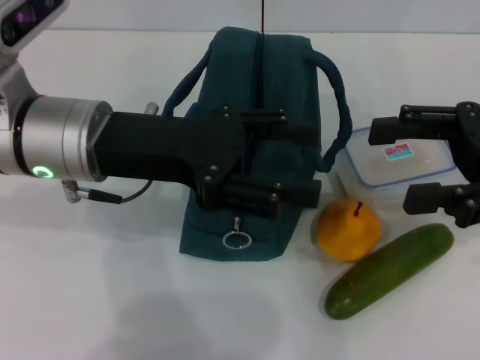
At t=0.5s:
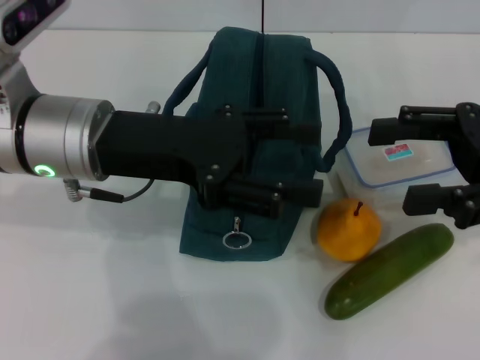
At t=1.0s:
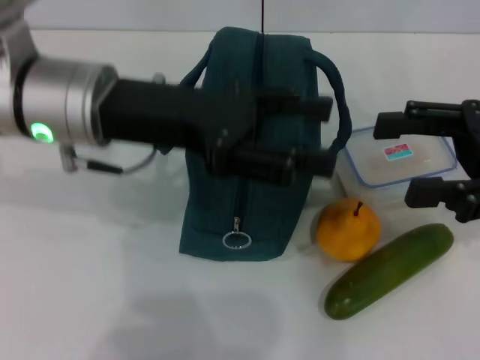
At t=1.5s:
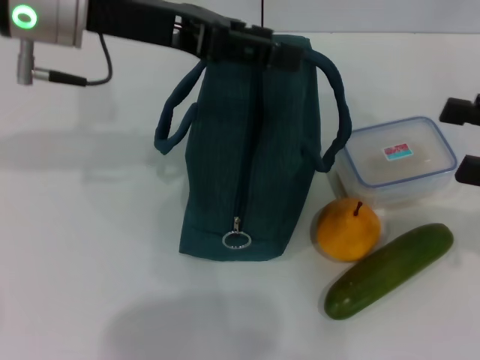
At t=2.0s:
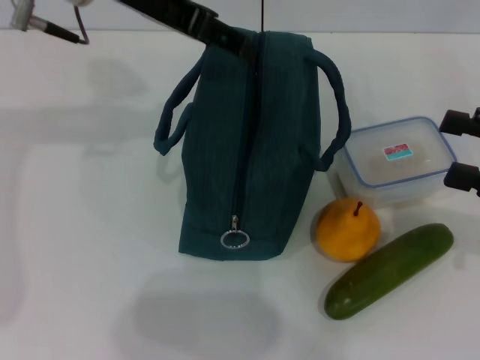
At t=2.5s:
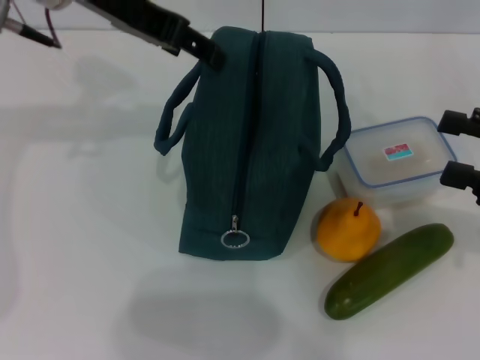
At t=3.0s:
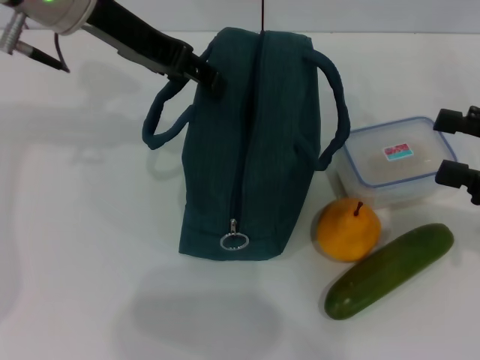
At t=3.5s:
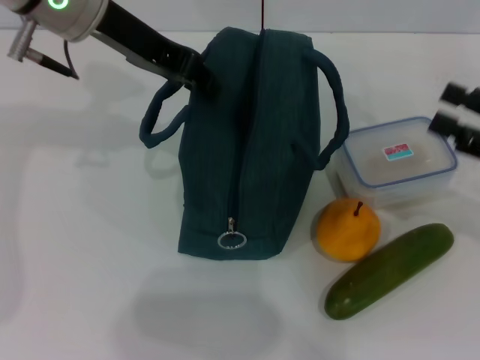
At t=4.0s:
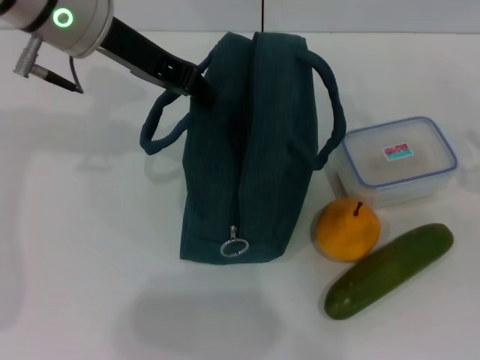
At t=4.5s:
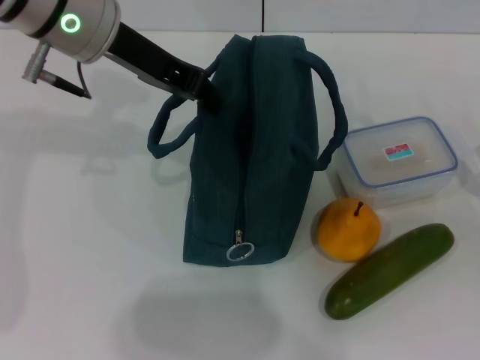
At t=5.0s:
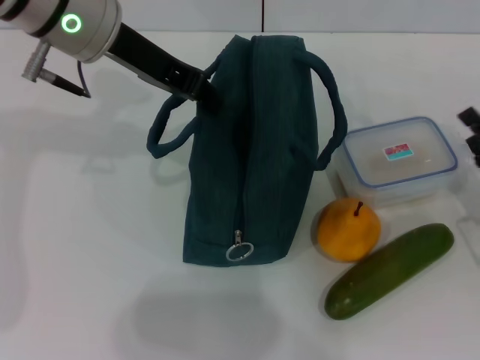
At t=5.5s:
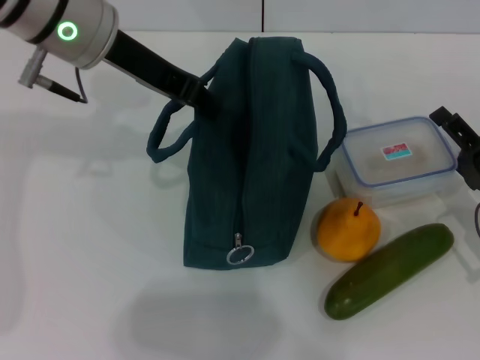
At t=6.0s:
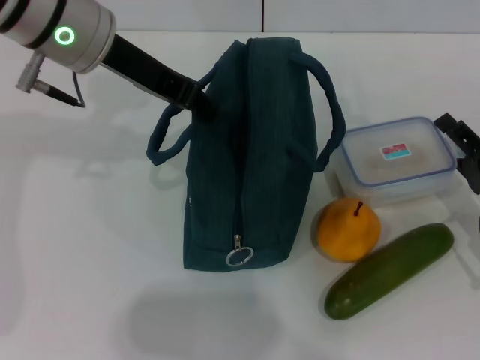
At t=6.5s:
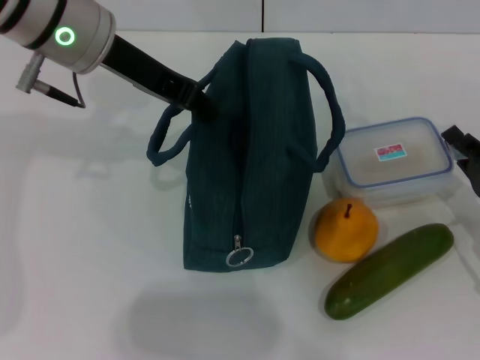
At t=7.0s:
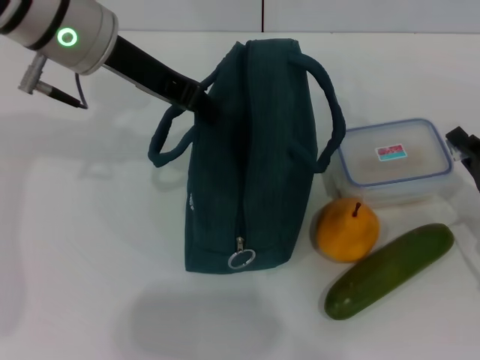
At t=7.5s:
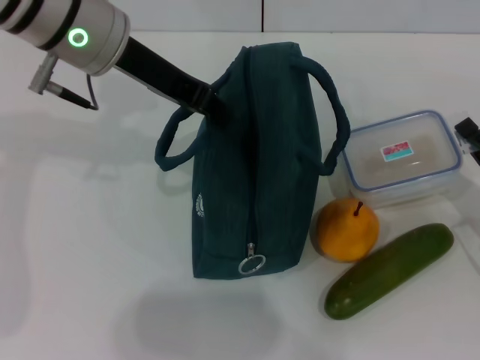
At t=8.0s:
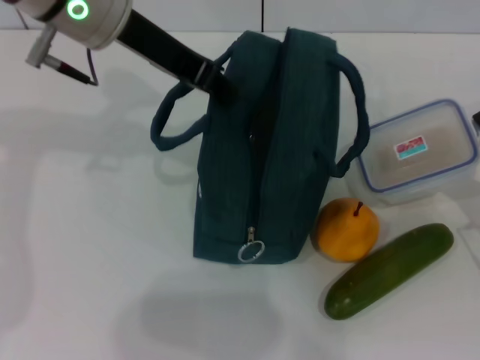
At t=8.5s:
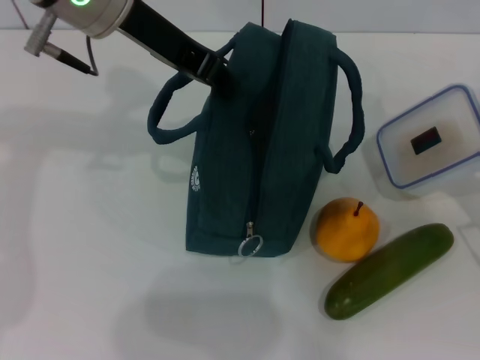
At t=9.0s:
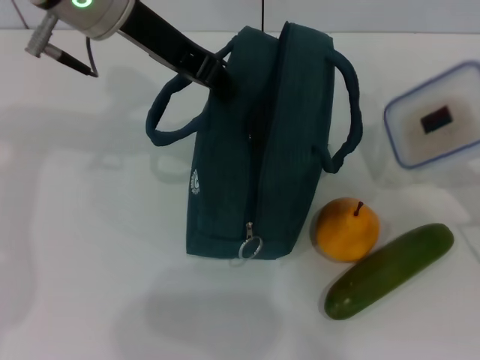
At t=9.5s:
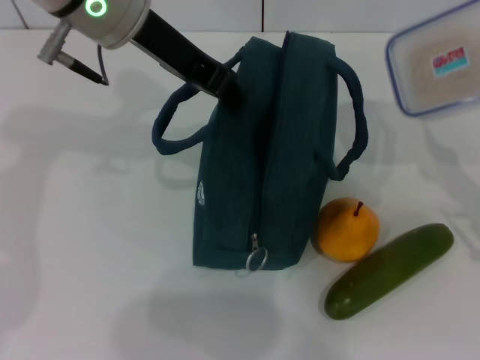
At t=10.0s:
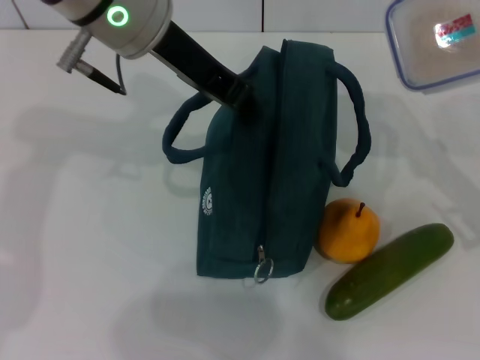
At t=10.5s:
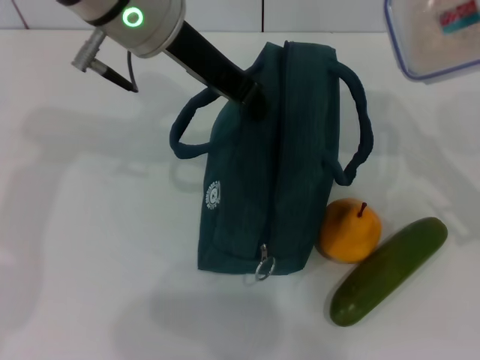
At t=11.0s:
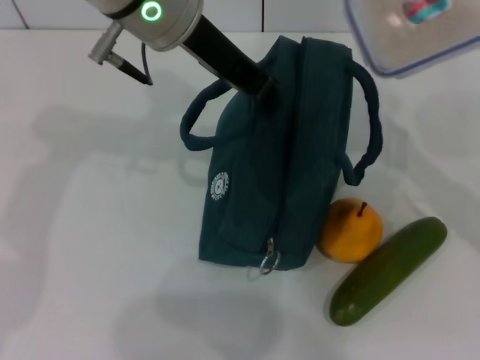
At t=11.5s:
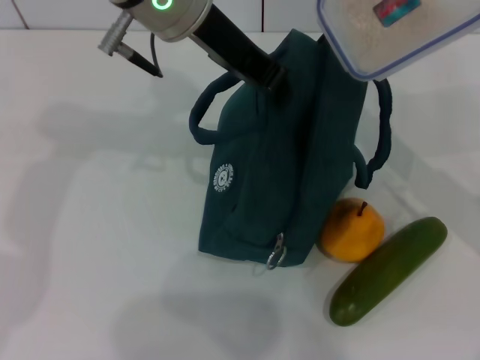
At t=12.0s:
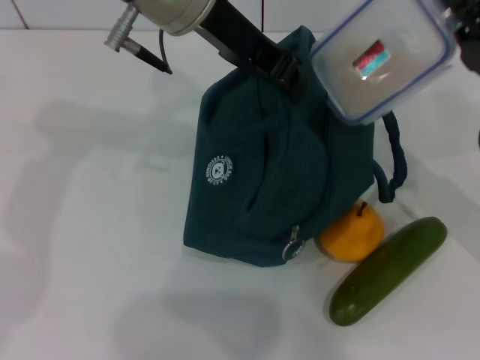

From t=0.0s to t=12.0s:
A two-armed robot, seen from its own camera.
Step, from t=0.0s to t=4.5s: Hold the lunch bag with your left hand.
Step, from t=5.5s to t=7.5s: Pick up the lunch box with your right hand.
From t=0.0s to t=2.0s: The right gripper shifts about 5 cm to the right. The left gripper moves upward and forward, about 15 cm.
From t=2.0s to t=4.0s: The left gripper closes its fingers. The right gripper is displaced downward by about 5 cm.
From t=4.0s to t=6.0s: The right gripper is displaced to the left and downward by approximately 10 cm.
From t=6.0s to t=8.0s: The right gripper closes.
From t=8.0s to t=10.0s: The right gripper moves upward, about 10 cm.
From t=10.0s to t=12.0s: The right gripper ends up approximately 5 cm from where it was.

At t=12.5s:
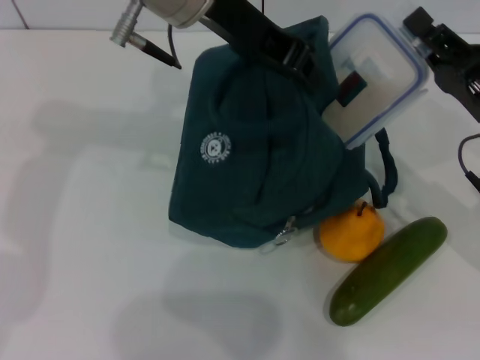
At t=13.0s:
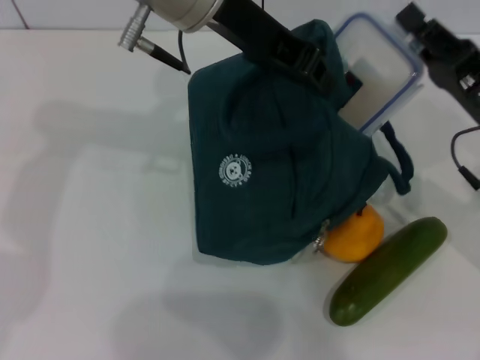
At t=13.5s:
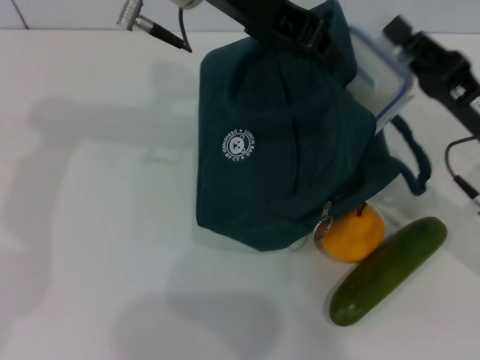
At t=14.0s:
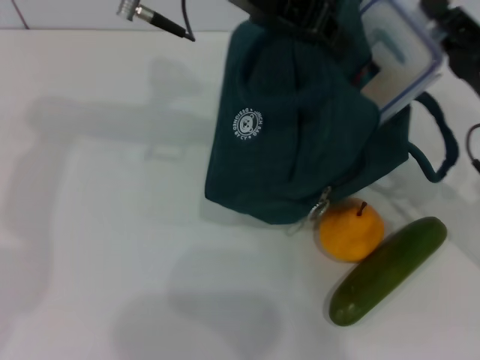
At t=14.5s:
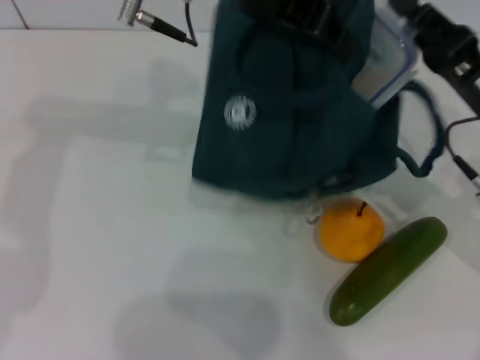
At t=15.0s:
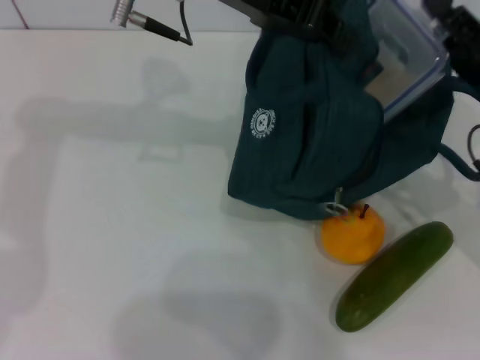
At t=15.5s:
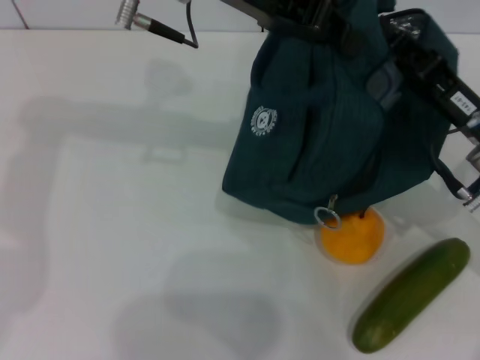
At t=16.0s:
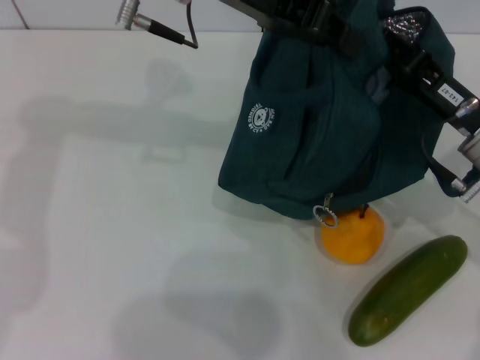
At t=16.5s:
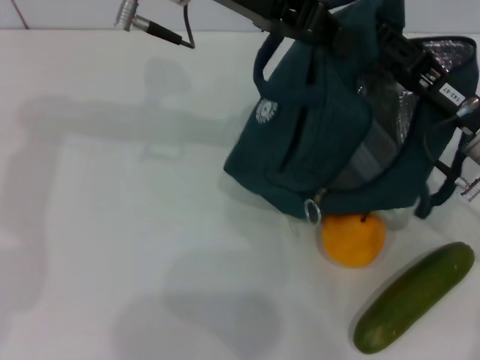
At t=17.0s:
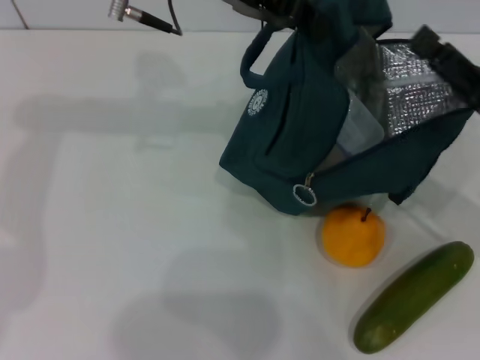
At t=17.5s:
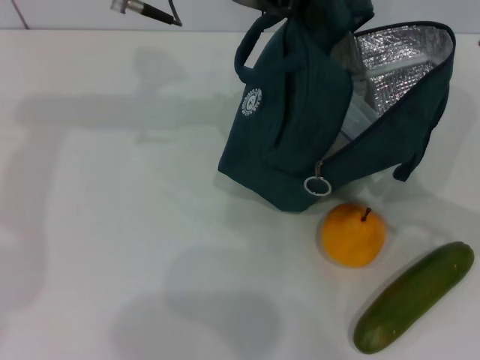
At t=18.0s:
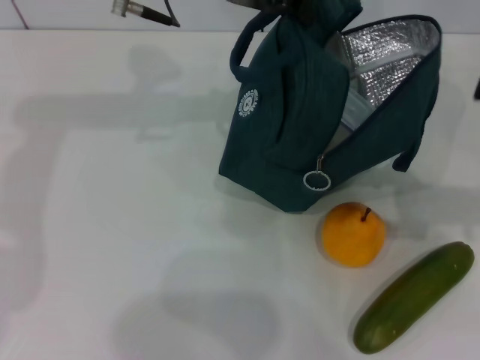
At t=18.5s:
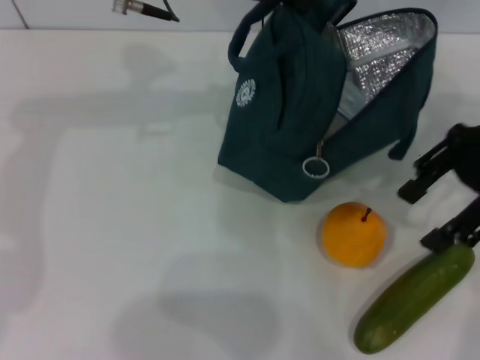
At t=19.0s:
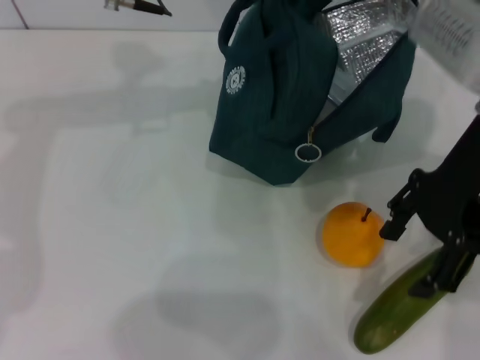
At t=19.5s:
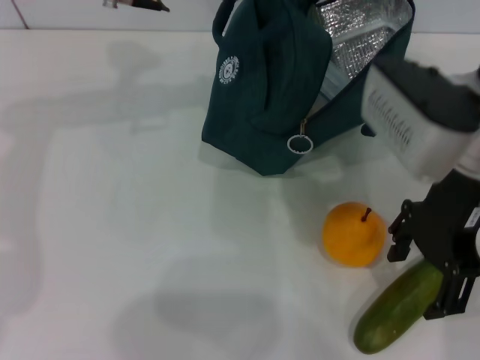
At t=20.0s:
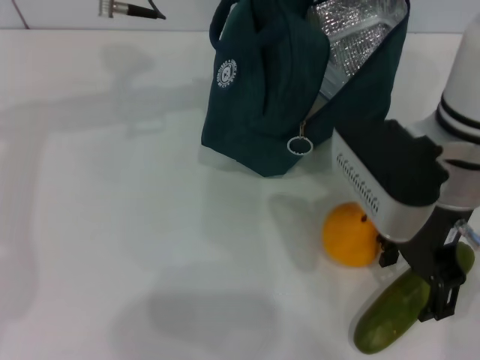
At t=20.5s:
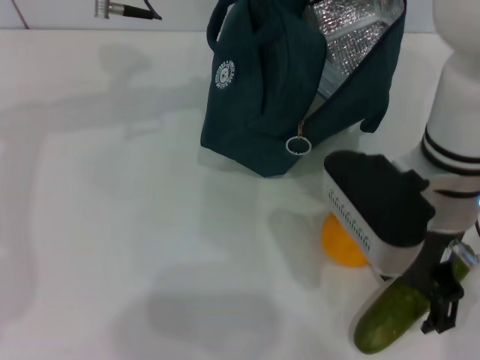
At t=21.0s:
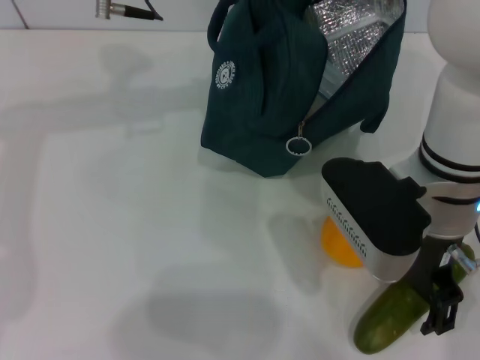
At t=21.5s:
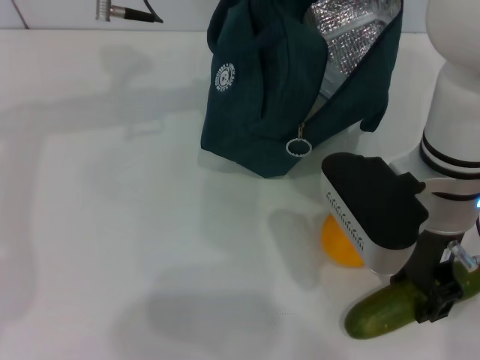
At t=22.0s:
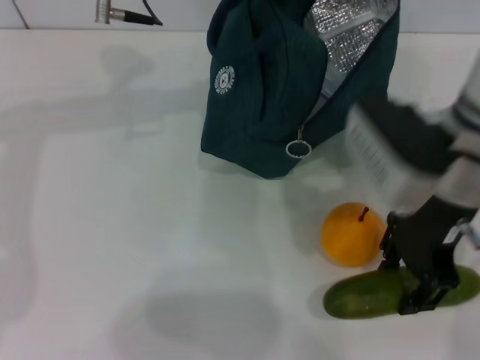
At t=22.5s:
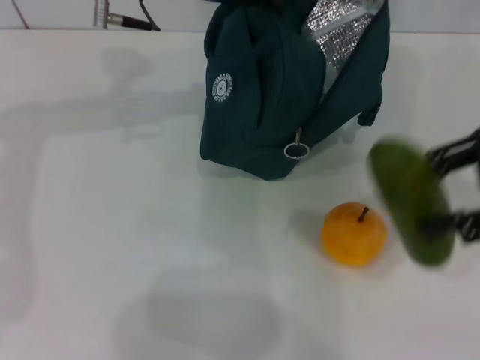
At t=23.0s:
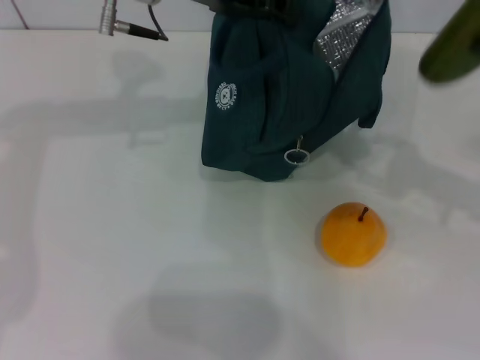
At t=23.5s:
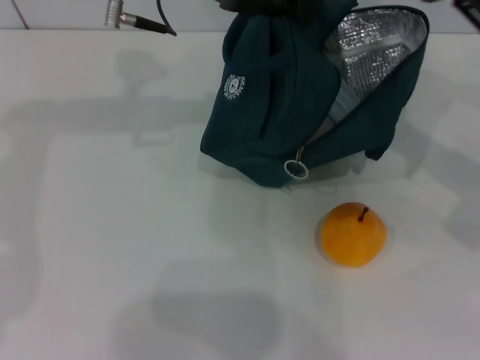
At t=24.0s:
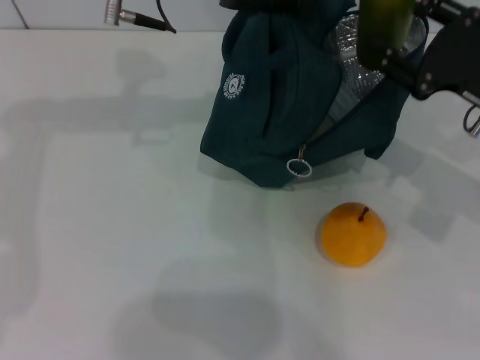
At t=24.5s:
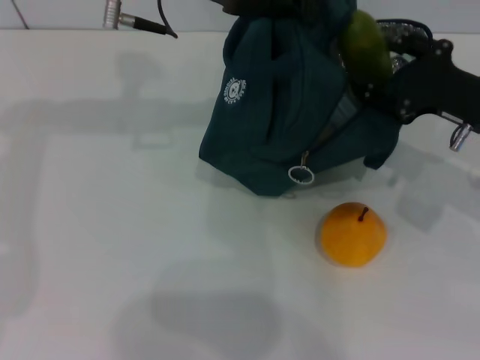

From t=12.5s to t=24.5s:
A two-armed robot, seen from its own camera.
Step, from t=12.5s to t=17.0s: Place the lunch box into the lunch bag with your right hand.
Step, from t=17.5s to t=21.5s: Pick up the cucumber with your right hand.
From t=16.5s to t=18.5s: The right gripper moves upward, about 15 cm, and opens.
From t=18.5s to t=20.5s: The right gripper travels to the left and downward by roughly 15 cm.
From t=20.5s to t=22.5s: The right gripper shifts approximately 15 cm to the right, and closes up.
From t=22.5s to t=24.5s: The right gripper heads downward and forward, covering approximately 10 cm.

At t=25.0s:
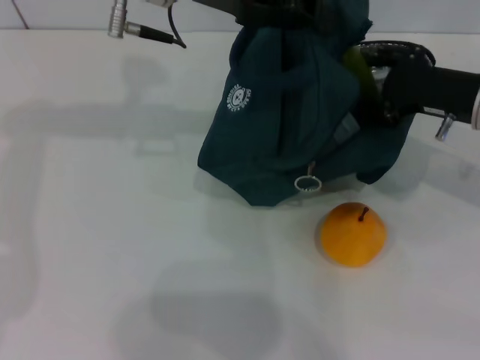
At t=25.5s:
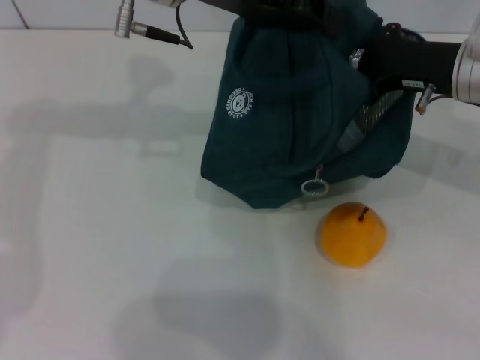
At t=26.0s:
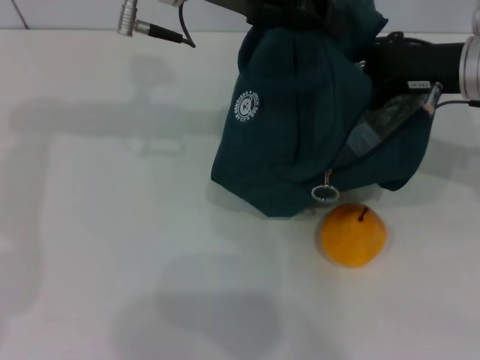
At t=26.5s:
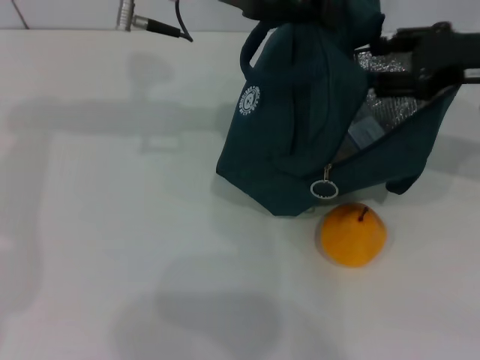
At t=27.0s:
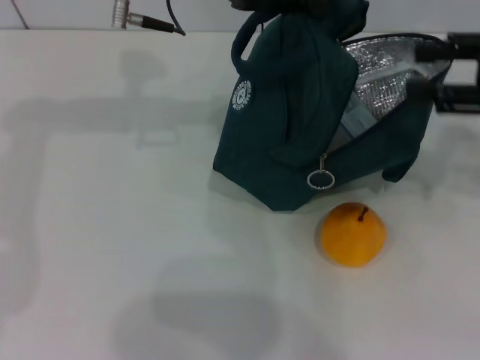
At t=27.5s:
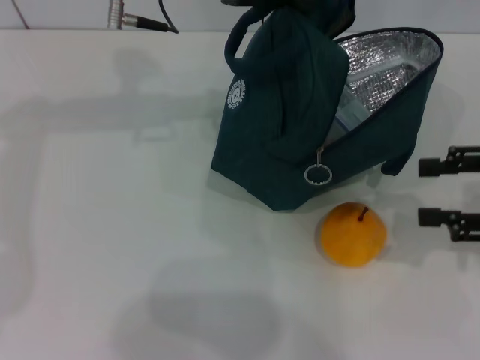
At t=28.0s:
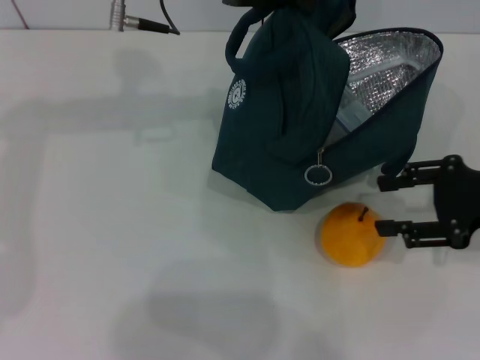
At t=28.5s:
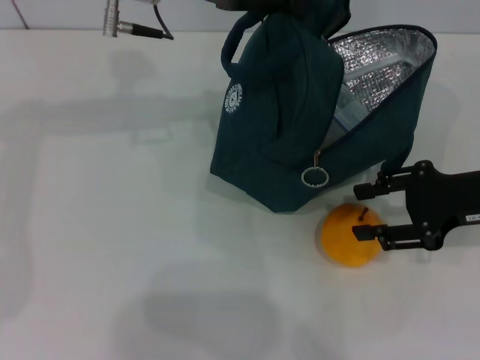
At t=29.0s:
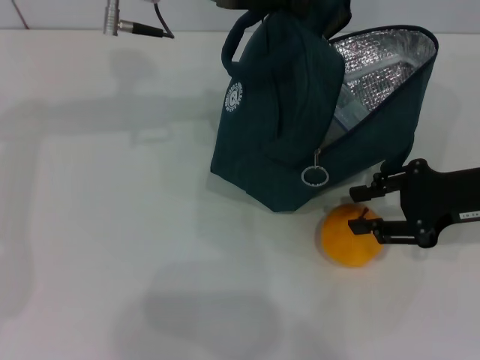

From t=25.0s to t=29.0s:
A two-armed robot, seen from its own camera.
Step, from t=25.0s to t=27.0s: Put the cucumber into the lunch bag with your right hand.
From t=25.0s to t=27.0s: The right gripper heads upward and to the right, covering about 10 cm.
From t=27.0s to t=29.0s: The right gripper shifts some 10 cm downward.
